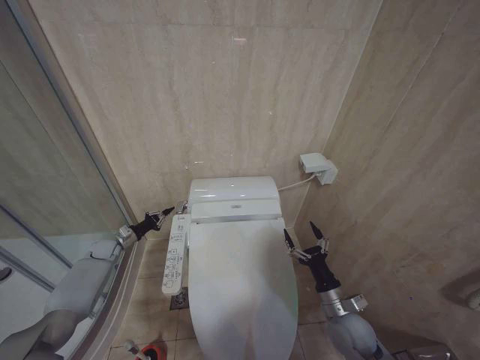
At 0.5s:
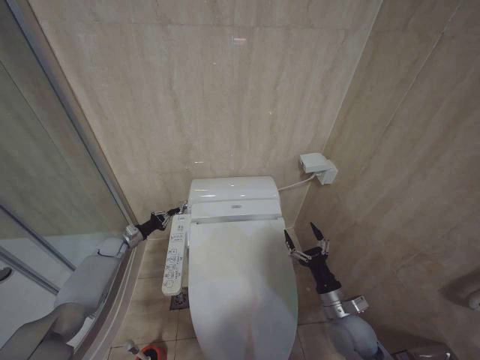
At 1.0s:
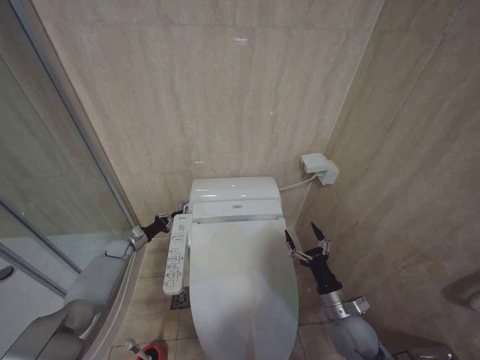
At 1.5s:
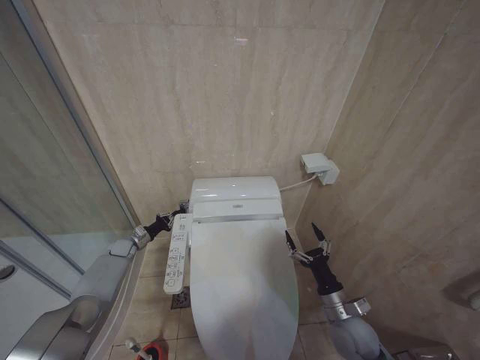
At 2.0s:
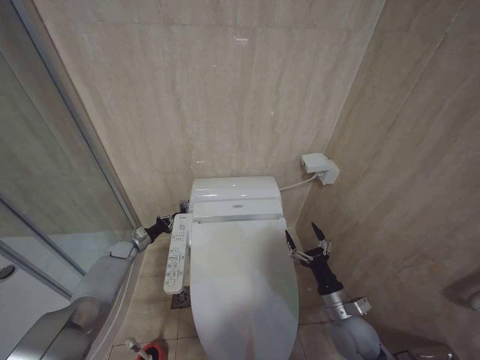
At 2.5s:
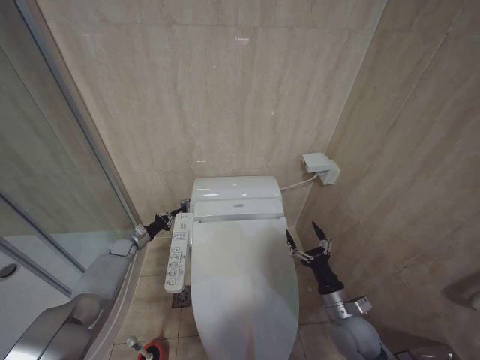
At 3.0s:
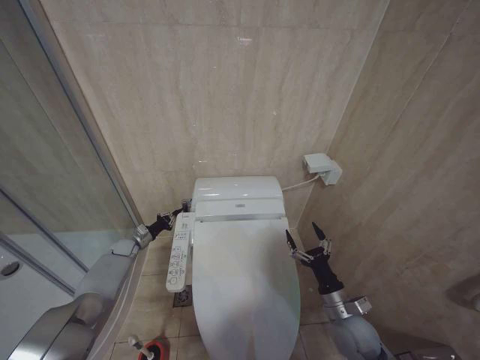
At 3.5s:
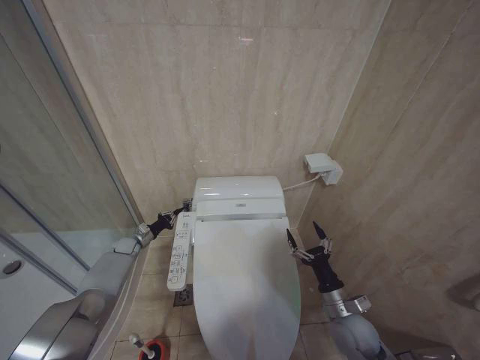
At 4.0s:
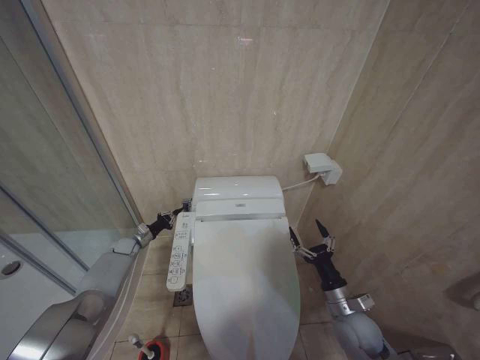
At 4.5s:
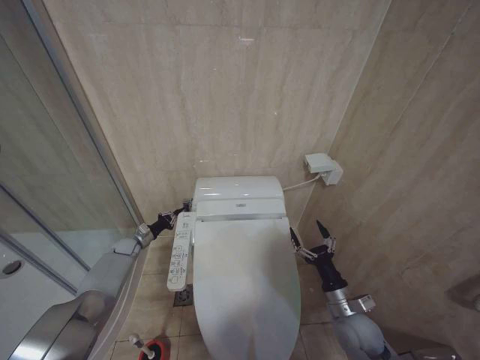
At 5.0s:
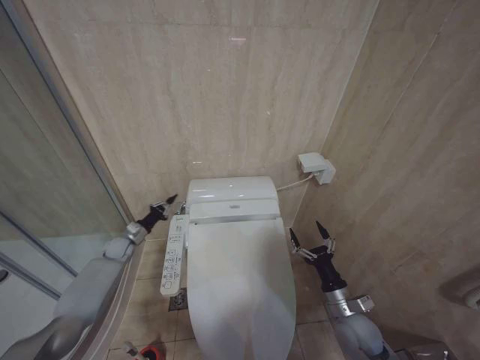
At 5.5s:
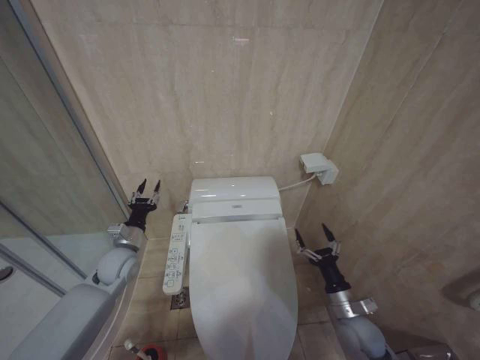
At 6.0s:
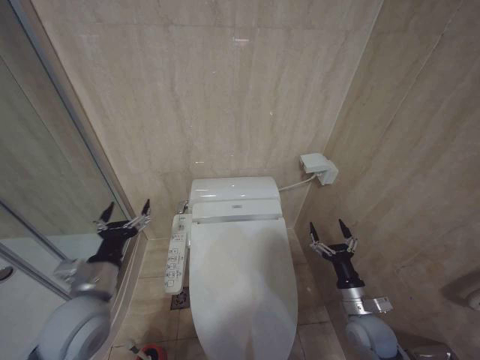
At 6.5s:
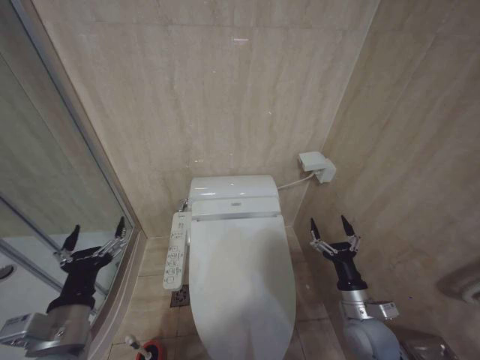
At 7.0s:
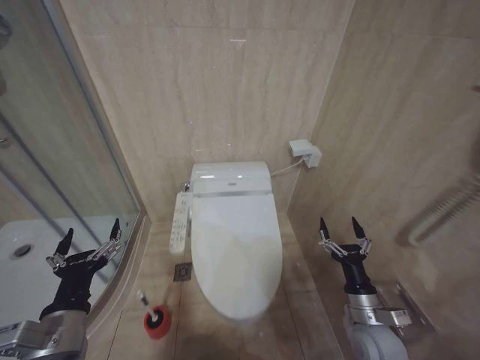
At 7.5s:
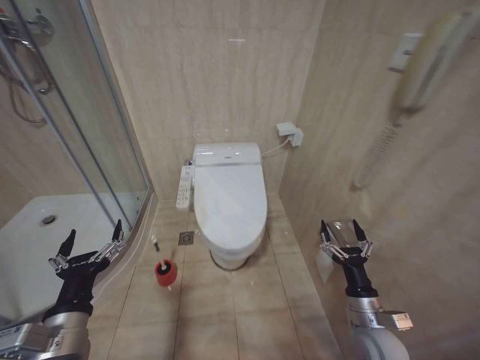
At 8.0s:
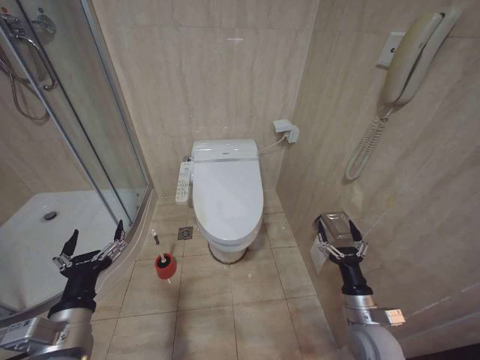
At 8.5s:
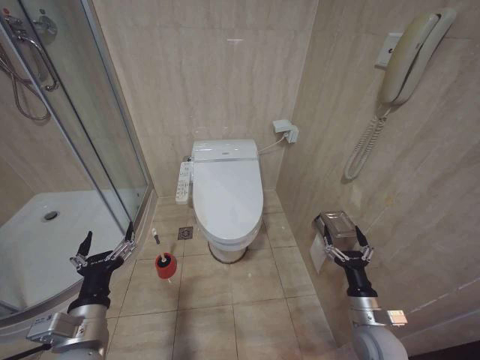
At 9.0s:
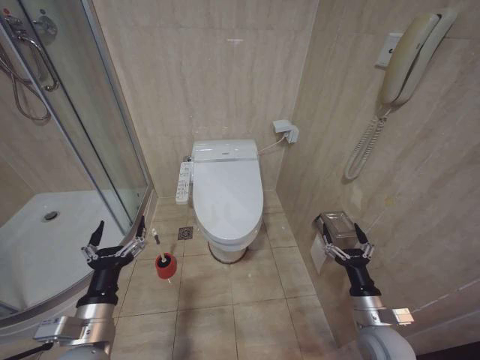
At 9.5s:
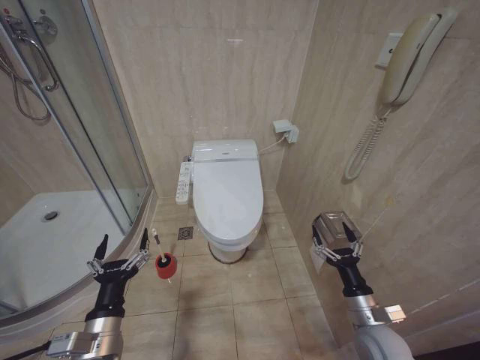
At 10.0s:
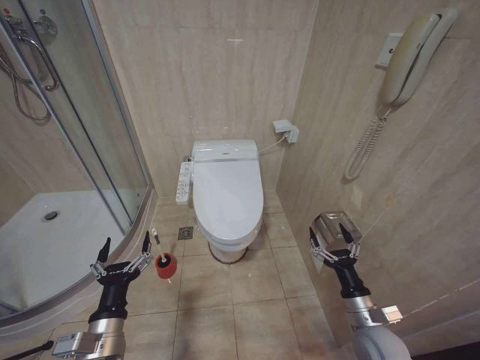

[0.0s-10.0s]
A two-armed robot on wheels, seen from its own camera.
Task of the whole recording: Open the toilet lid, clean the toilet bowl with a toilet brush, close the toilet lid, and flush.
0.0s to 2.0s: The left gripper changes place by about 5 cm.
2.0s to 4.0s: The grippers make only small movements.
4.0s to 6.0s: The left gripper heads backward and upward, covering approximately 35 cm, and opens.
6.0s to 8.0s: The left gripper shifts roughly 10 cm backward.
8.0s to 10.0s: The left gripper is displaced downward by about 5 cm.
